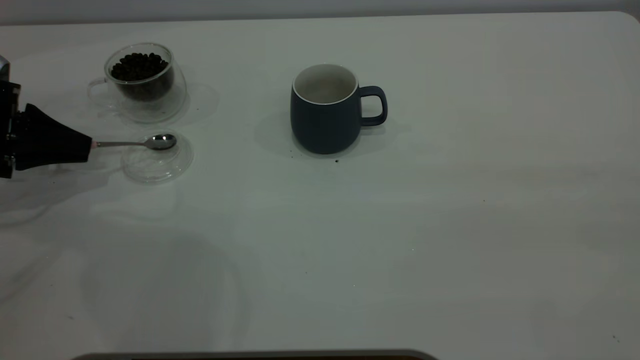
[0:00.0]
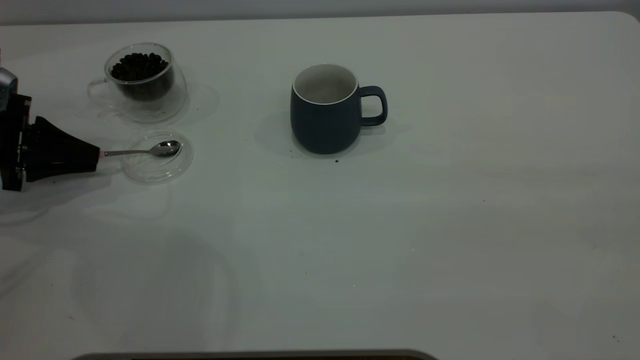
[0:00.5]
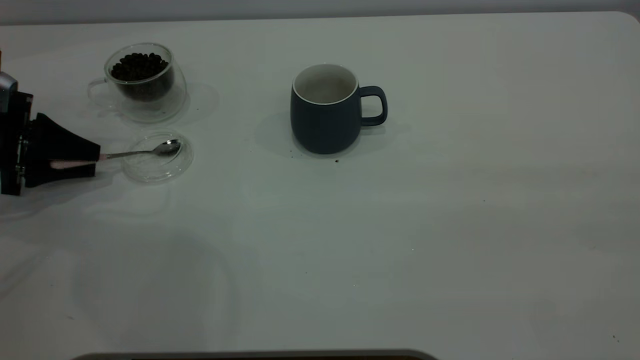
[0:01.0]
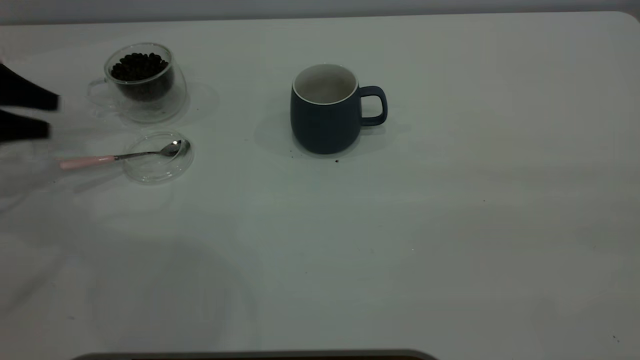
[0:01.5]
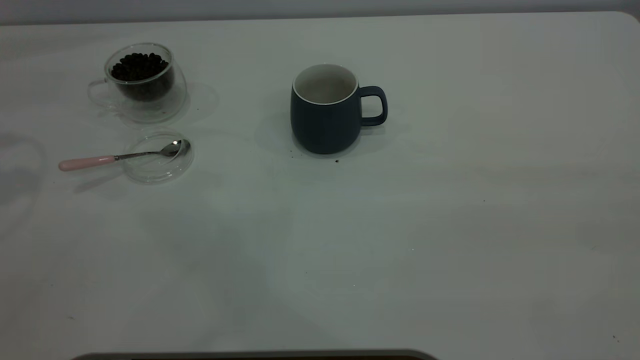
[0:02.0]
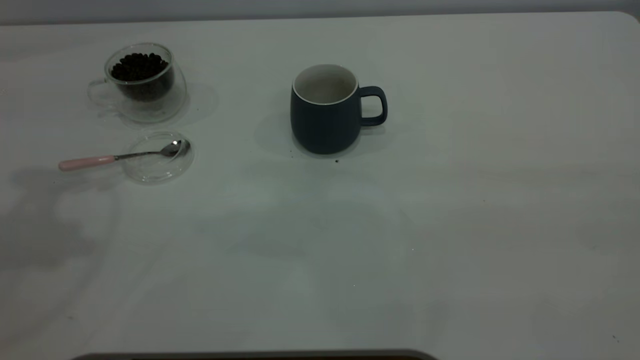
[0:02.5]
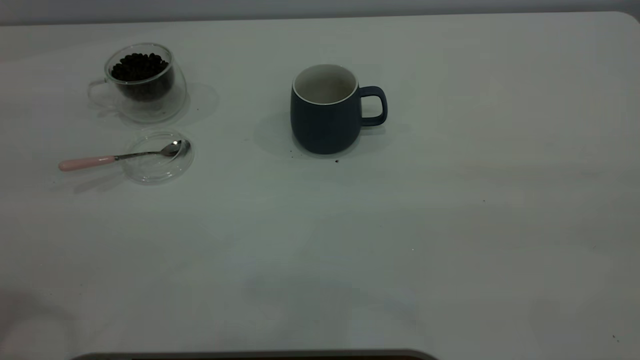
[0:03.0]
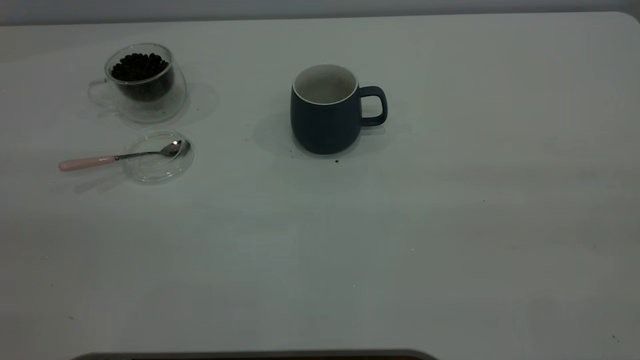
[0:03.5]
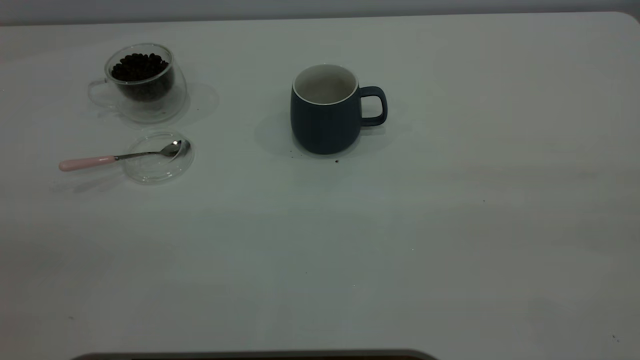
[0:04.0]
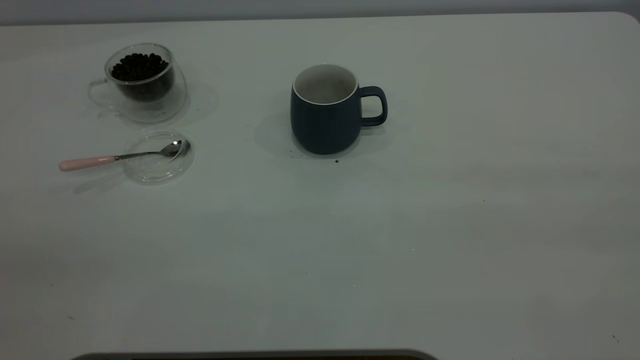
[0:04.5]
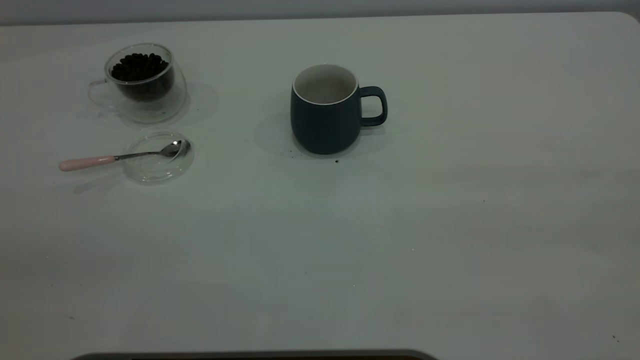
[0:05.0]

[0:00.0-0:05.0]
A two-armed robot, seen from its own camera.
Task of the whole recording: the right gripper place the grey cup in the center of the table, the left gripper take the pink spoon from the cup lid and scoop out the coffee beans from the coffee cup and put them into the grey cup, the left gripper put the spoon back into the cup lid.
0:00.0 to 0:02.5: The left gripper heads upward, covering approximately 30 cm, and opens.

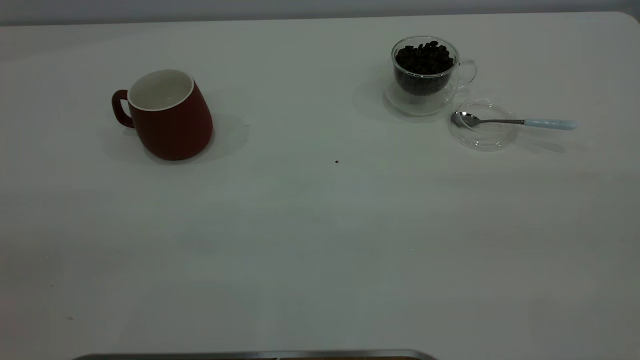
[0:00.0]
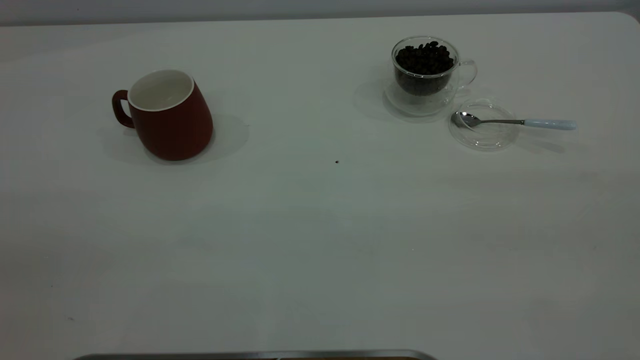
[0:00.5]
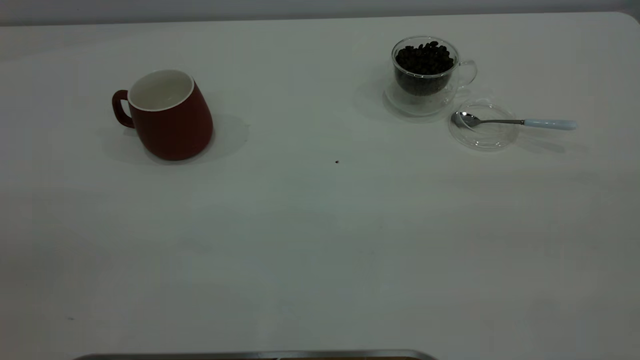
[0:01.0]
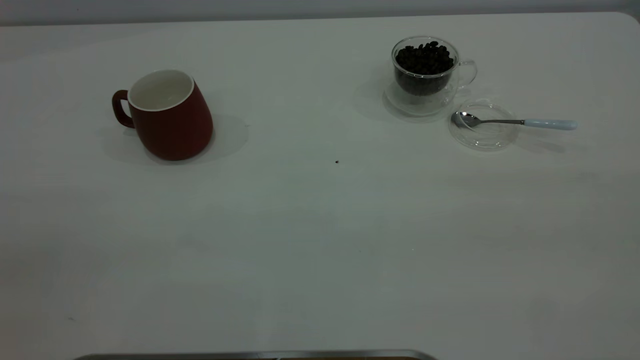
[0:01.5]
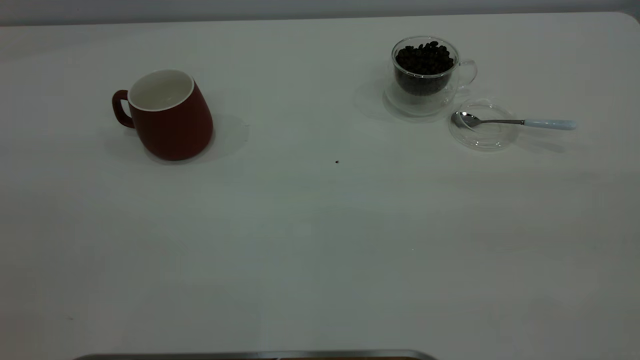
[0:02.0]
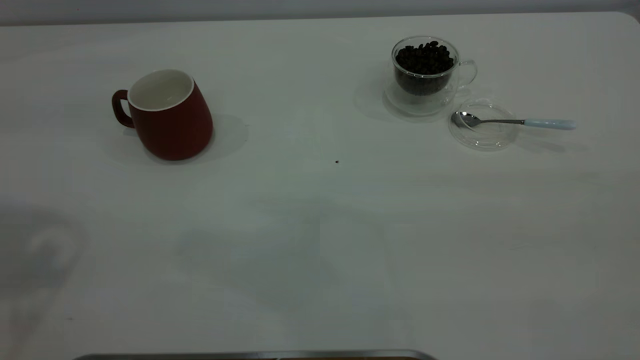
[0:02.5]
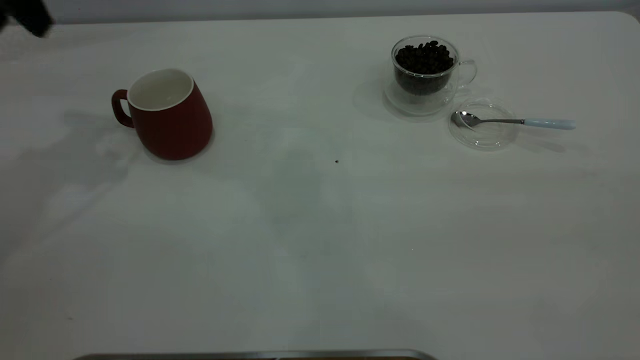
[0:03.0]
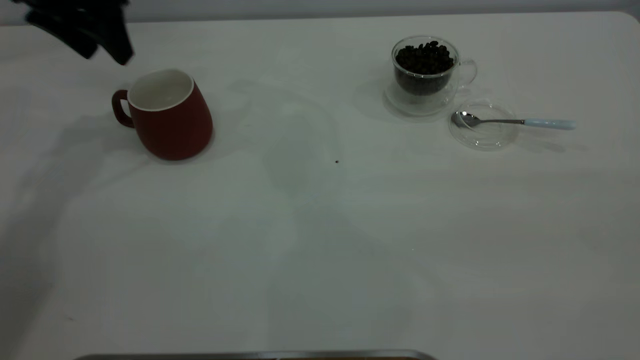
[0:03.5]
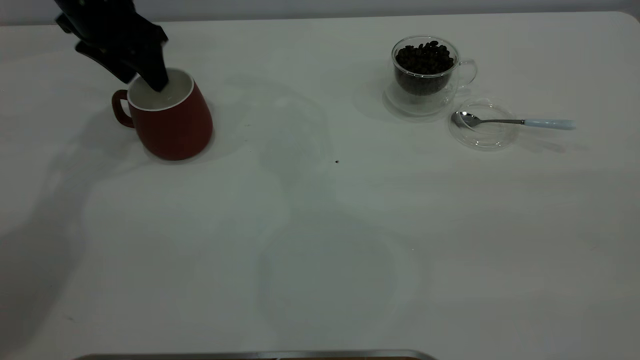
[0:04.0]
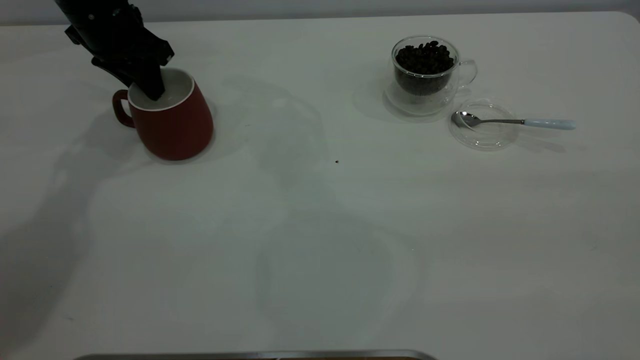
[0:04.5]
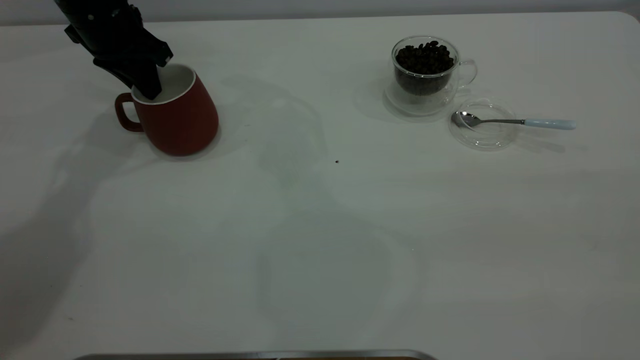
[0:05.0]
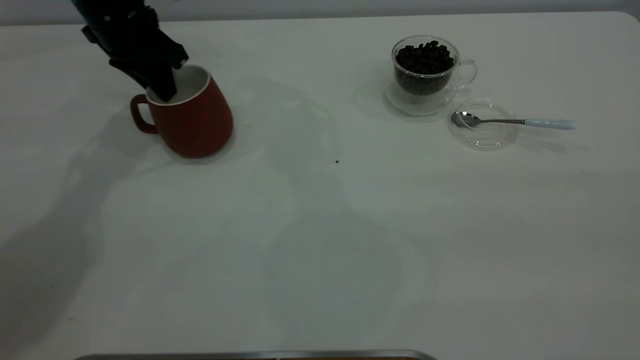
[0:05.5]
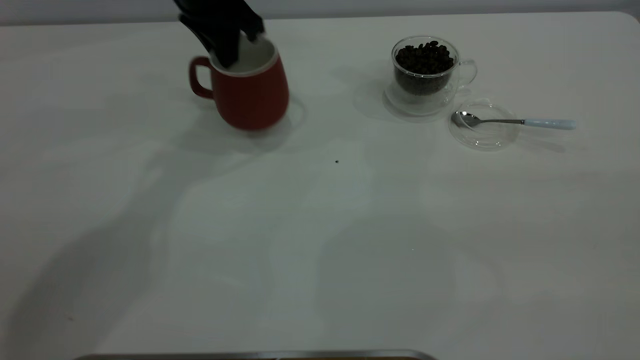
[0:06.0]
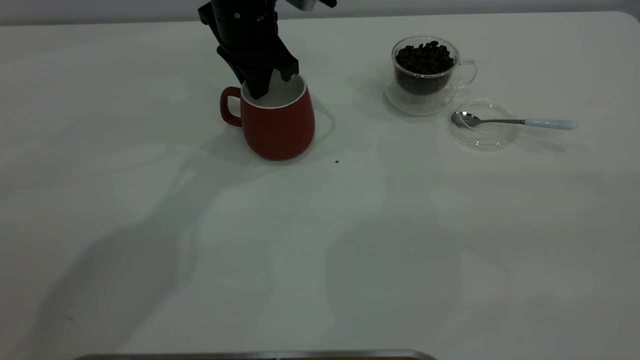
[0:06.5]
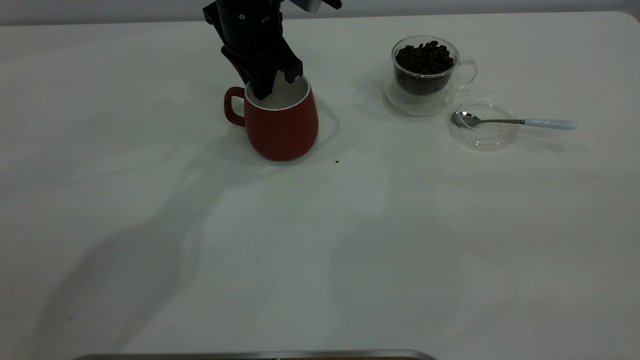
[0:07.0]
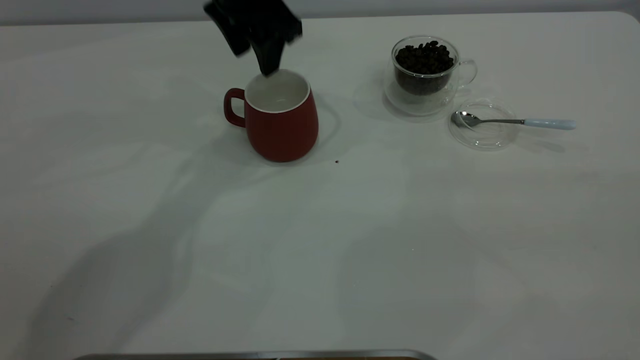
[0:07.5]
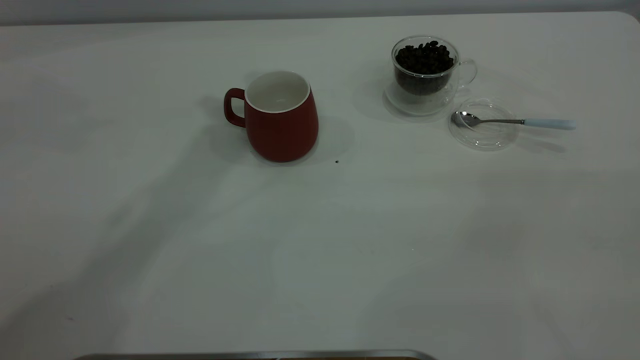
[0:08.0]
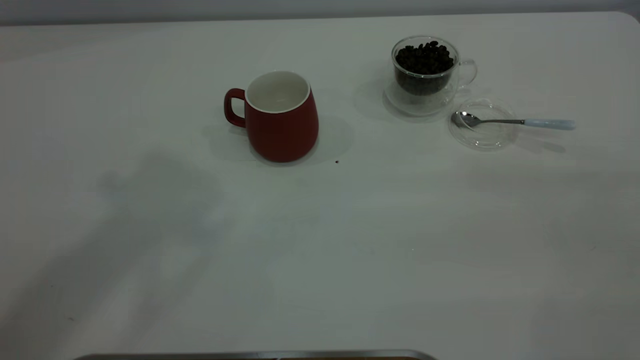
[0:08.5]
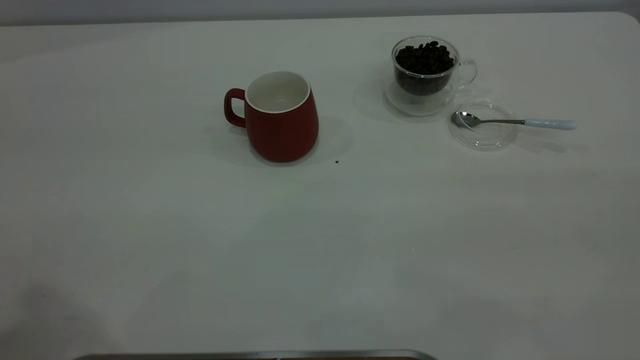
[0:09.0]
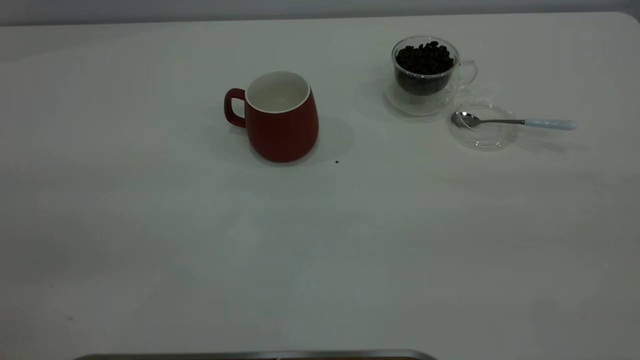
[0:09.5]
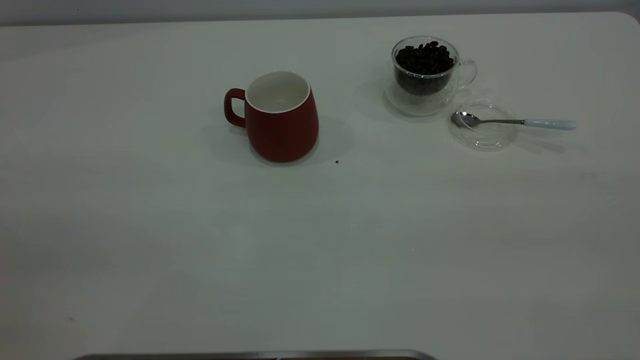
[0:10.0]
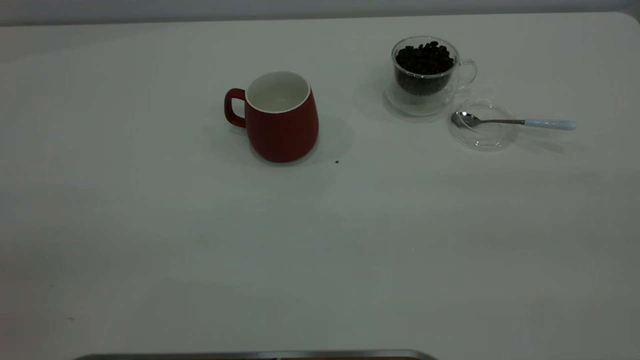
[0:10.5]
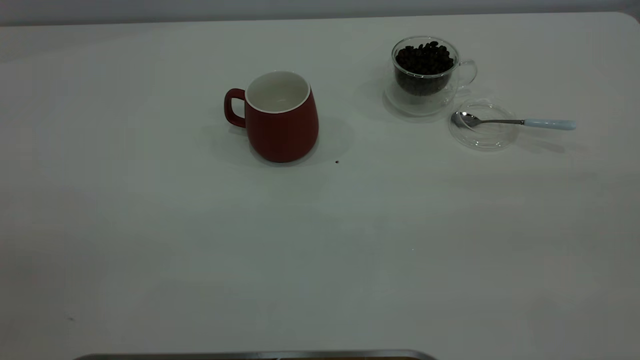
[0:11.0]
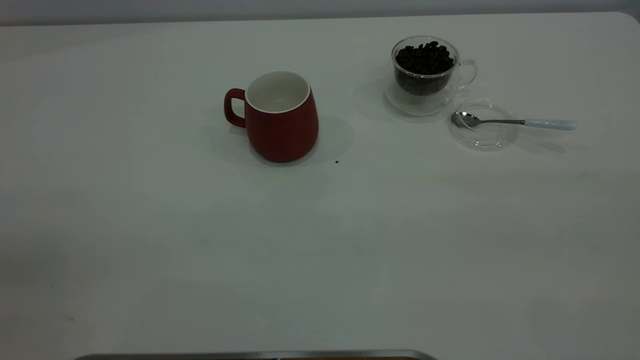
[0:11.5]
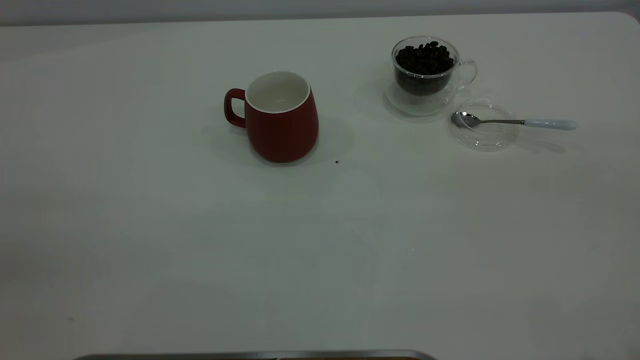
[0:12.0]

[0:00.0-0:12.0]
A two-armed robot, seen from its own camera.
Task of the whole recording: the left gripper place the red cup in the center of the table, the right gripper take the blue spoon from the cup lid and scoop out the coffee beans from the coffee cup and put them into the red cup, the right gripper put the spoon back into the cup lid.
Step, 0:00.0 to 0:07.0: Move the cup to the center of view.
0:02.0 to 0:04.0: The left gripper moves forward and downward, approximately 50 cm.
0:04.0 to 0:06.0: The left gripper shifts some 15 cm to the right, and closes.
0:06.0 to 0:08.0: The left gripper travels upward by approximately 25 cm, and opens its fingers.

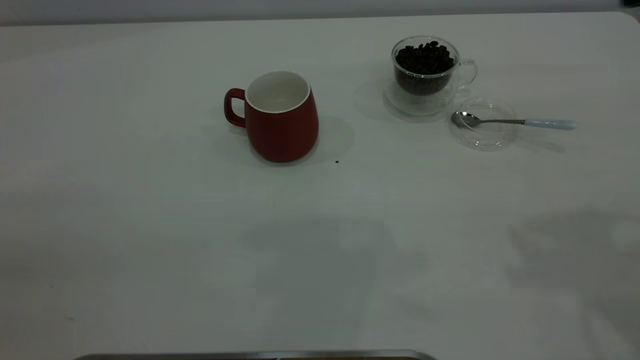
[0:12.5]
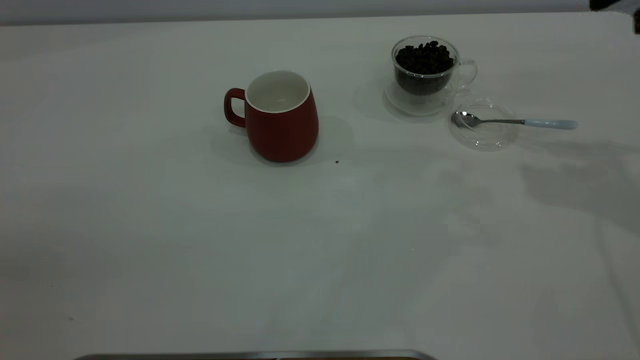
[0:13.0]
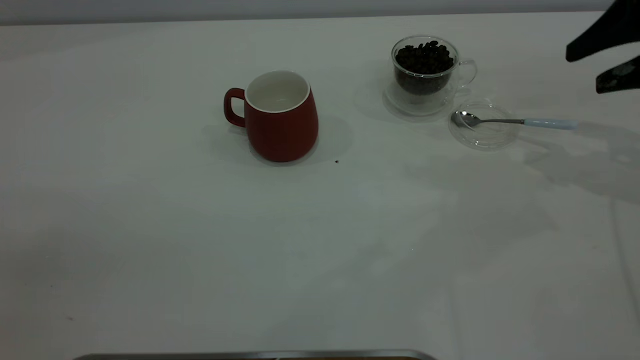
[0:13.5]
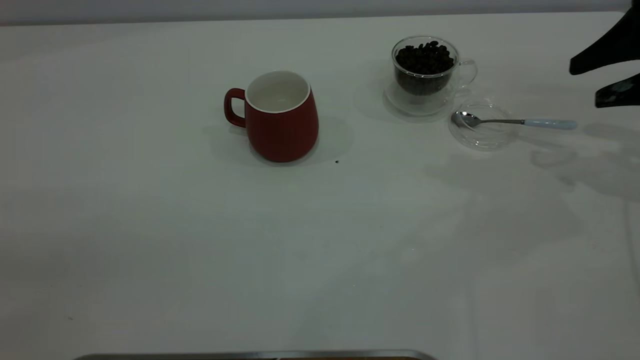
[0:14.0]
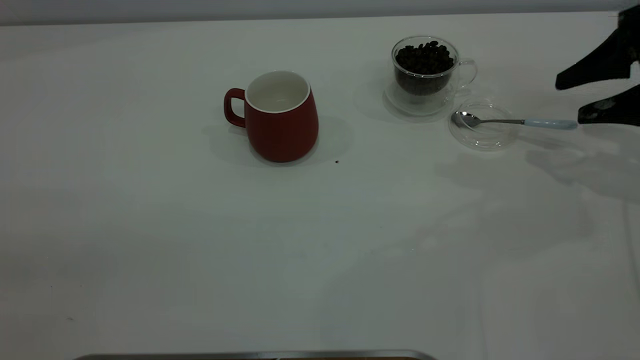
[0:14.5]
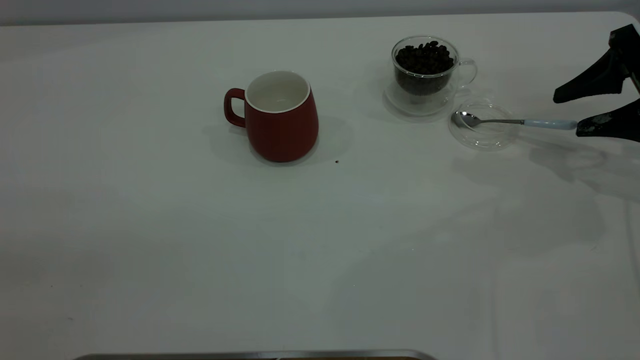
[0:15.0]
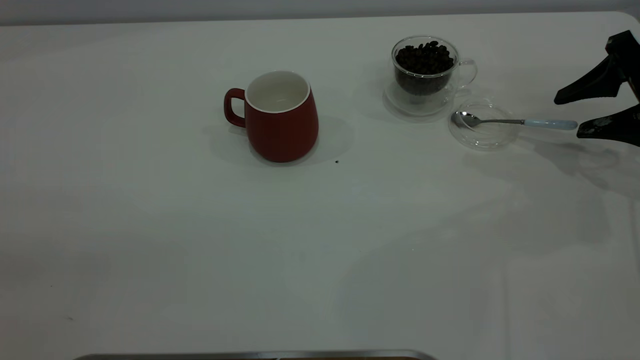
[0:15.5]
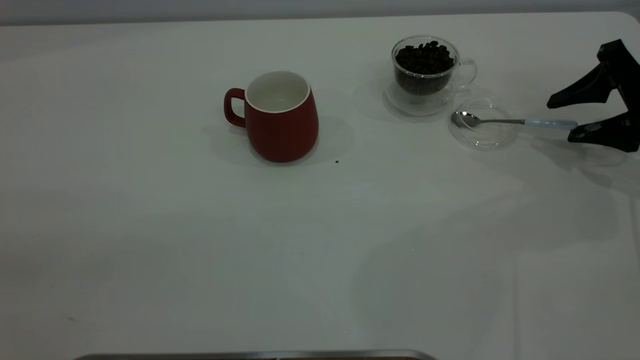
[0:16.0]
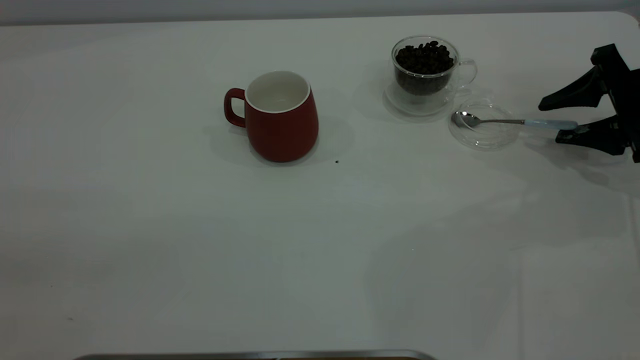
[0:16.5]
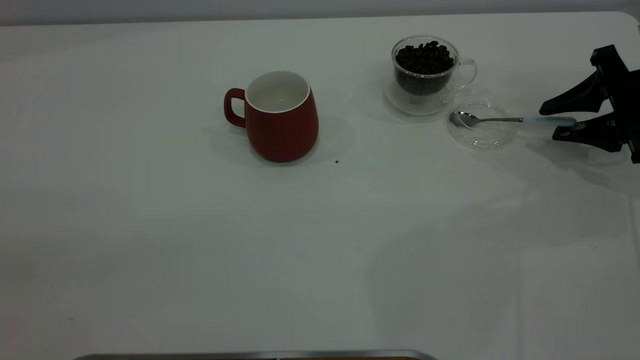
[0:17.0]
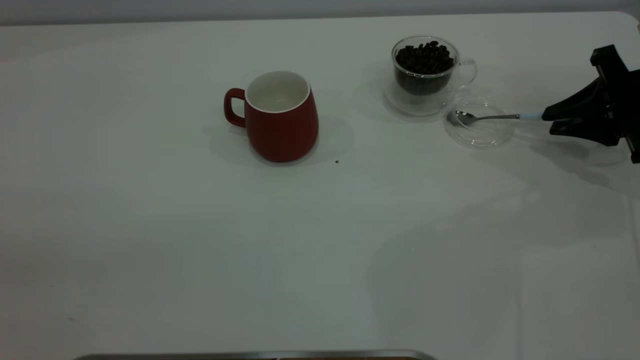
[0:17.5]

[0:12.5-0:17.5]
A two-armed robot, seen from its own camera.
Task of the whole recording: the left gripper place the red cup in the center of the table, the right gripper take the blue spoon from the cup lid and scoop out the coffee beans from the coffee cup and put them into the red cup, the right gripper put the spoon back into the cup lid.
0:12.5 to 0:15.0: The right gripper travels downward, to the right and forward by roughly 25 cm.
0:15.0 to 0:17.5: The right gripper closes.
